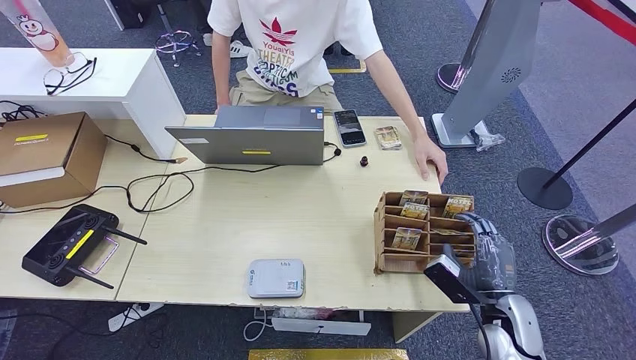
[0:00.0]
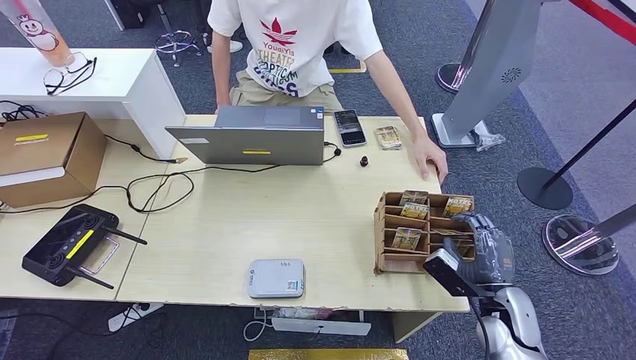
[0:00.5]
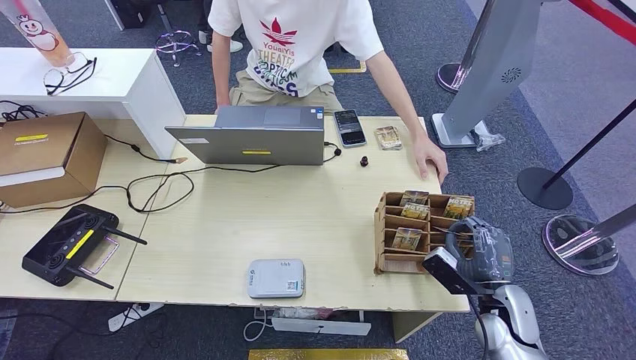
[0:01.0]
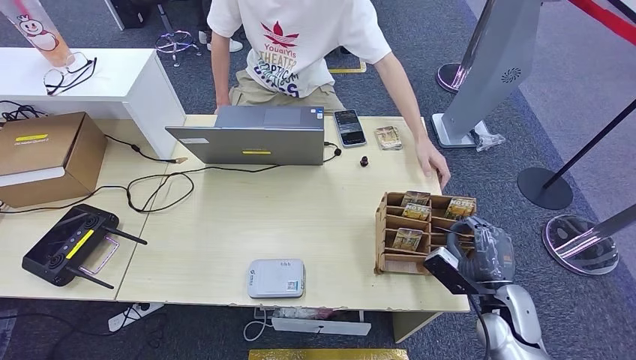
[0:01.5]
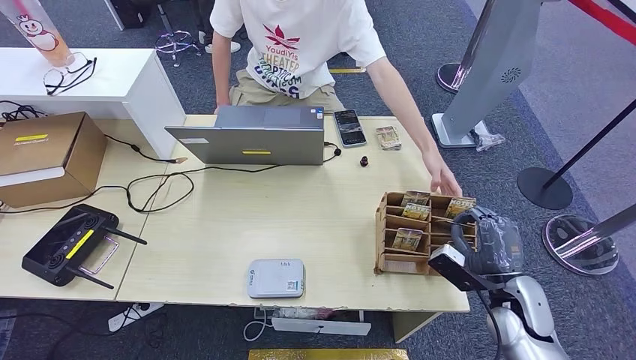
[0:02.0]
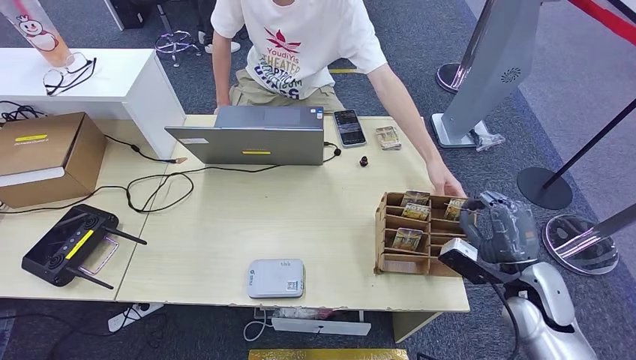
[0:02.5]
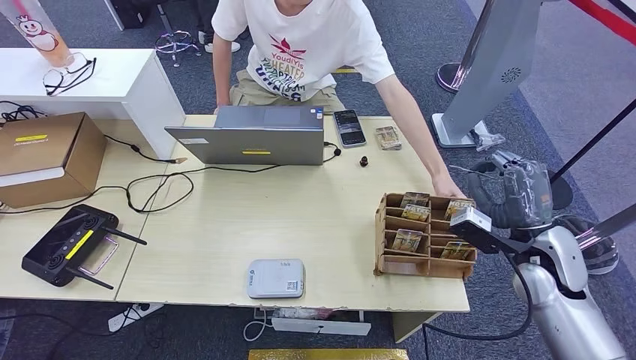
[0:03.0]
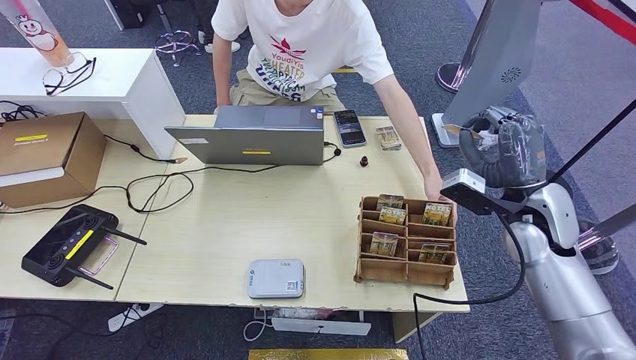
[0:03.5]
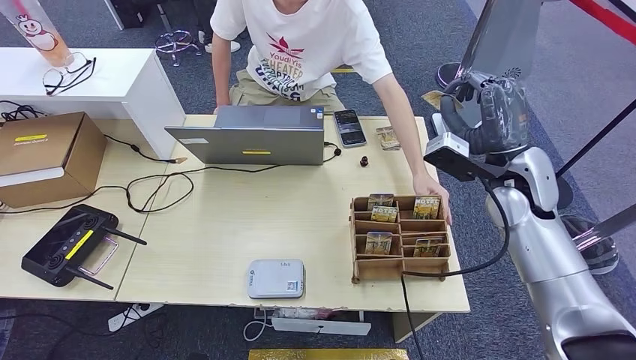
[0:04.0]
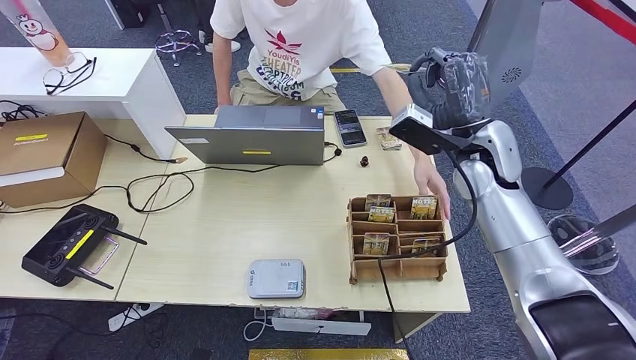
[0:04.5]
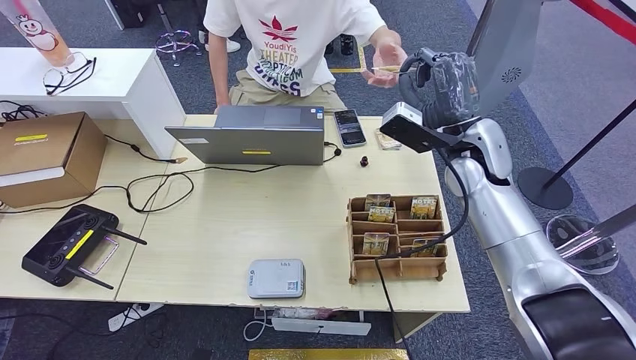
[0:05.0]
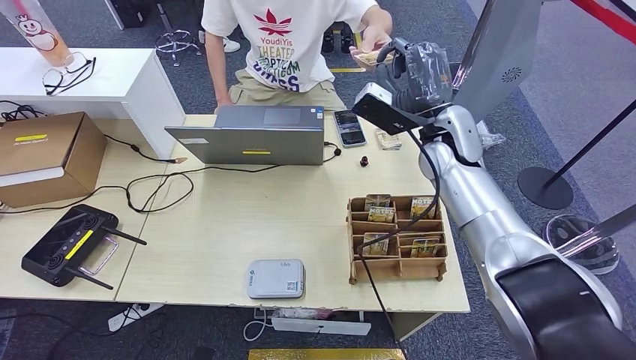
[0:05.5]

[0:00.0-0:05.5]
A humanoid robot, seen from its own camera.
Step, 0:00.0 to 0:02.5: Pick up the room key from the key card box.
Step, 0:03.0 to 0:05.5: Hand the room key to the person.
0:00.0 to 0:02.0: The hands move only a little.
0:02.0 to 0:03.5: The right hand moves upward and forward, some 20 cm.
